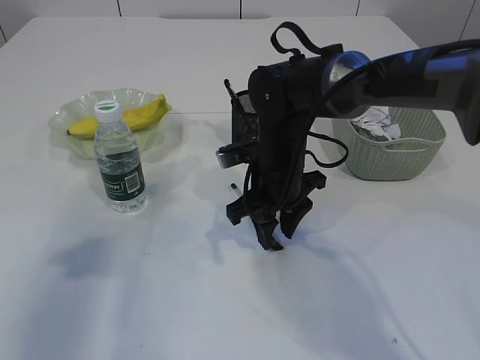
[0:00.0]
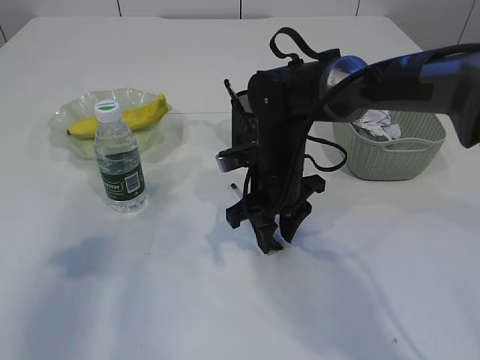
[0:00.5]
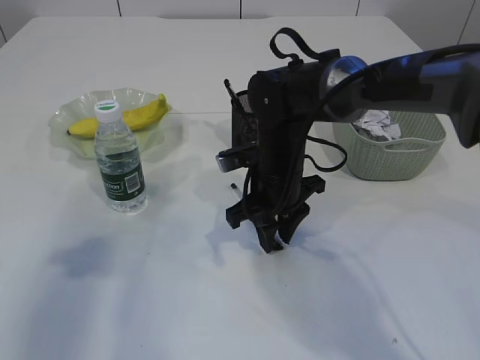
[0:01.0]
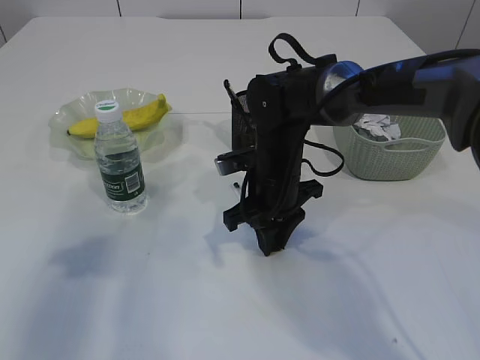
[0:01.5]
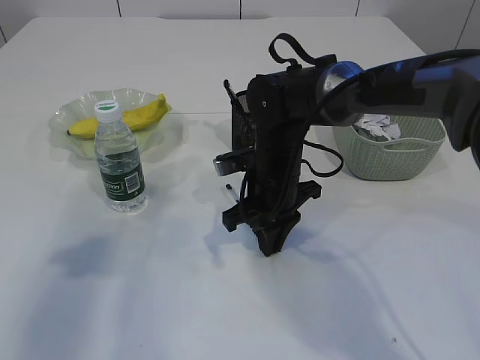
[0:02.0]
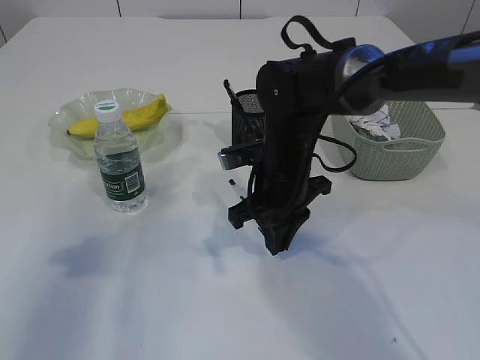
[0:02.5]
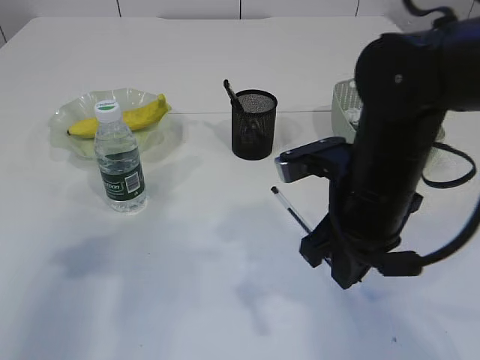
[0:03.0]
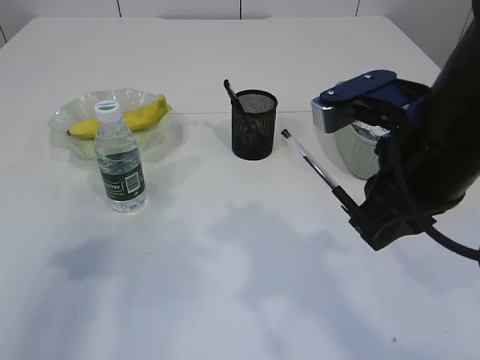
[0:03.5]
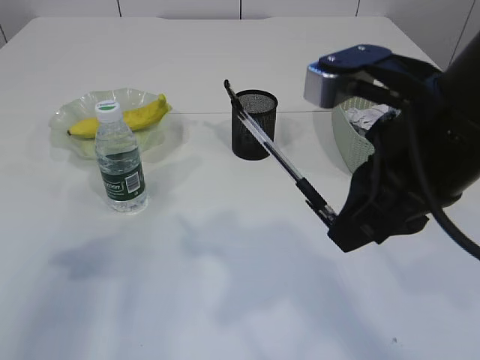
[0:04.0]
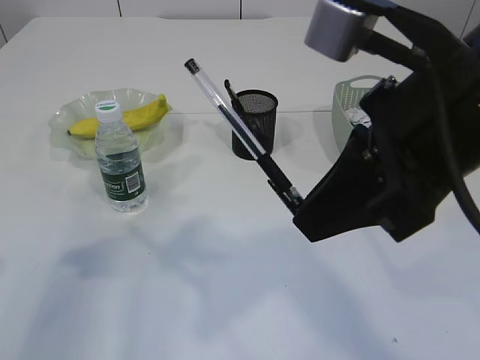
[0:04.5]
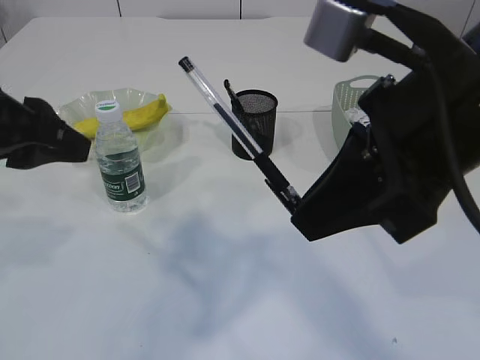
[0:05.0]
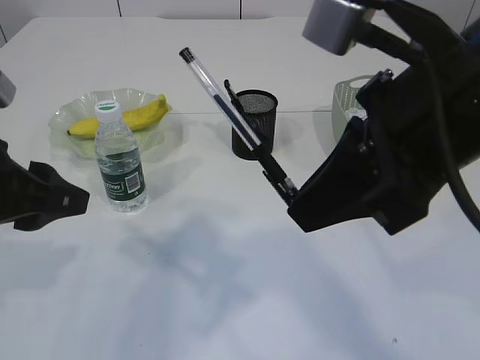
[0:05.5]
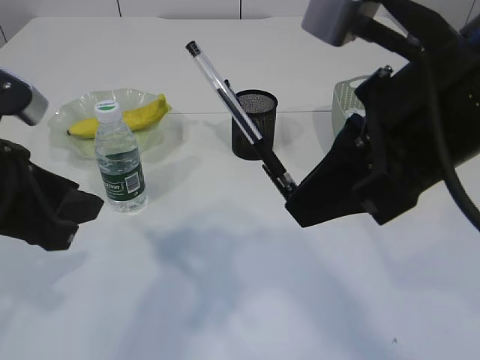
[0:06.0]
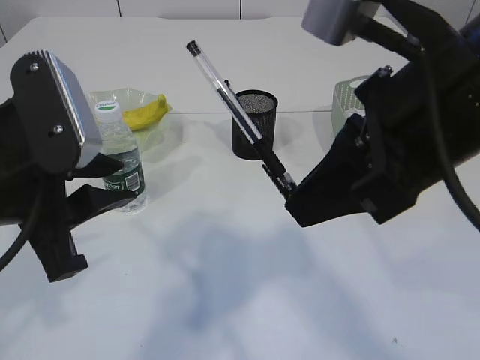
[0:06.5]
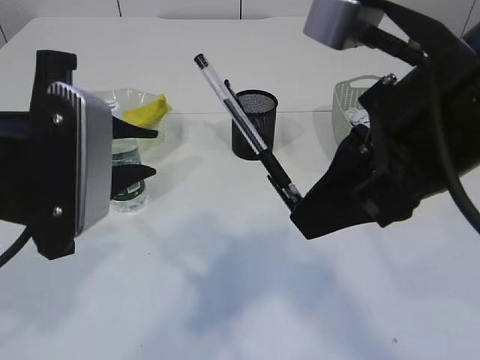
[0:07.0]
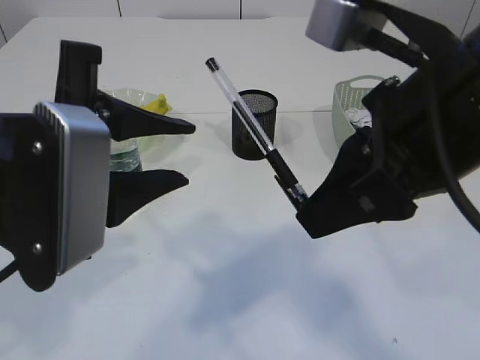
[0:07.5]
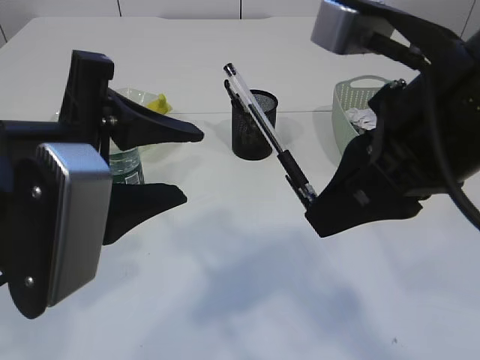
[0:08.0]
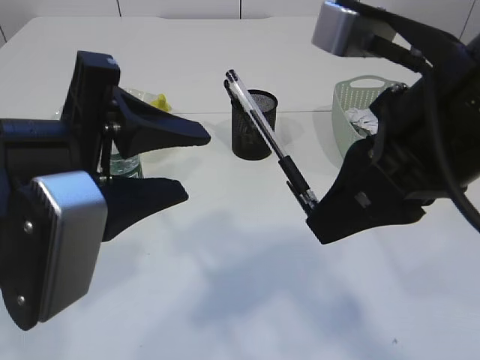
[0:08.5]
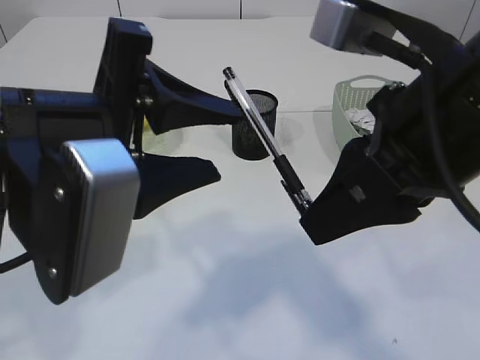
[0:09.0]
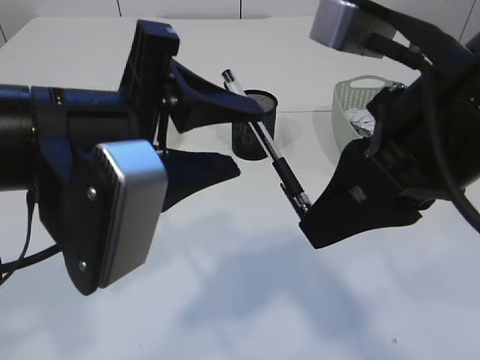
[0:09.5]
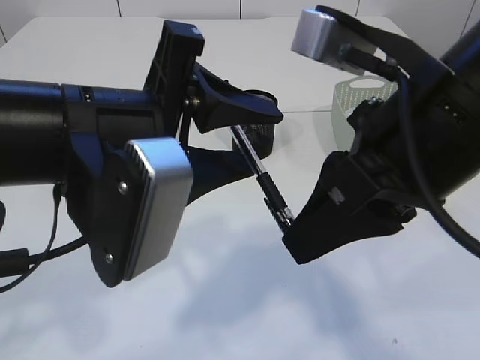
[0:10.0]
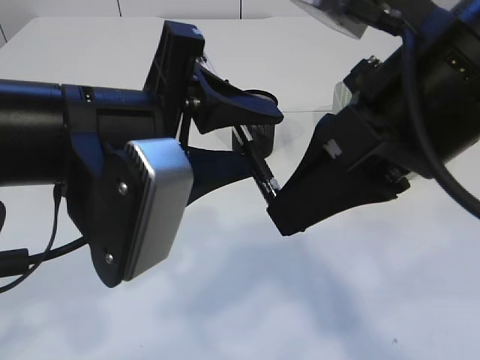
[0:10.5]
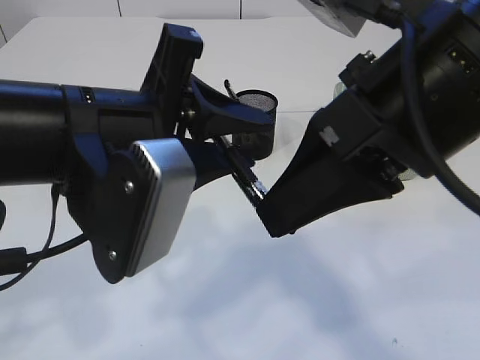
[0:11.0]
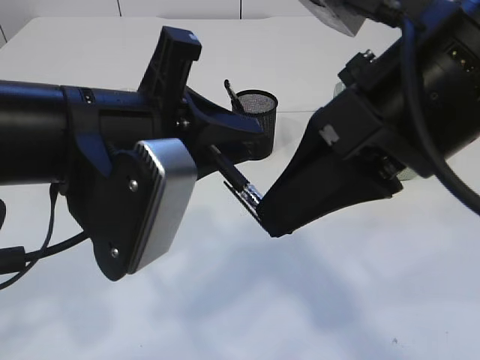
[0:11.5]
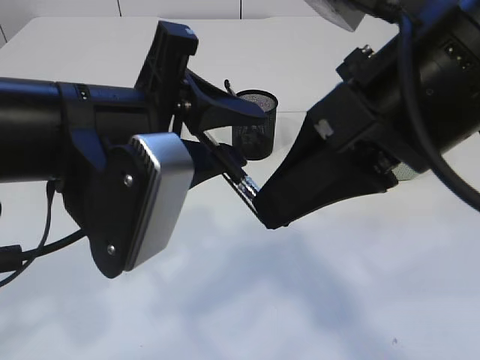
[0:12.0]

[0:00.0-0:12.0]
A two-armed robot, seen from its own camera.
0:00.0 to 0:02.0: The right gripper closes.
0:02.0 to 0:04.0: The right gripper shifts roughly 25 cm upward, backward and to the right.
0:04.0 to 0:06.0: The left gripper goes roughly 10 cm to the right.
0:06.0 to 0:08.0: The left gripper goes roughly 5 cm to the right.

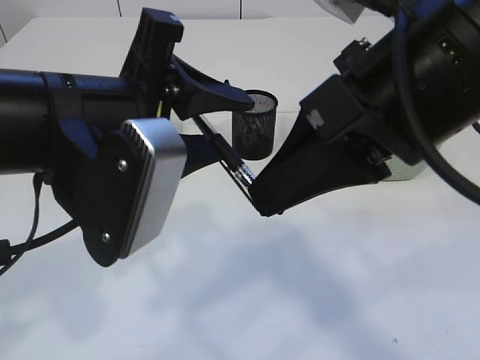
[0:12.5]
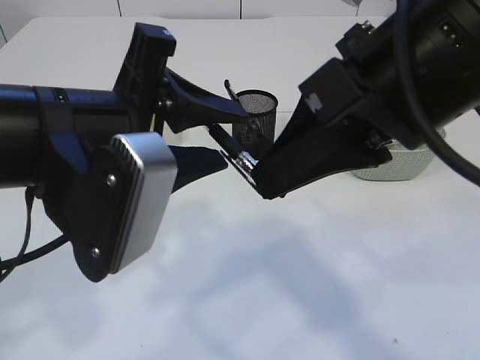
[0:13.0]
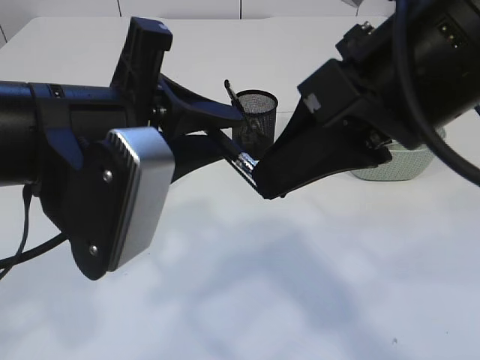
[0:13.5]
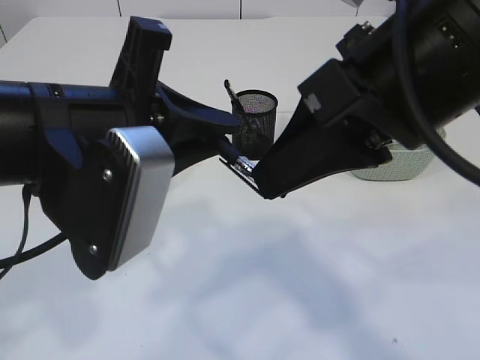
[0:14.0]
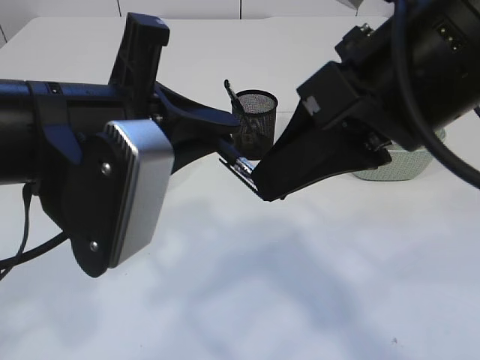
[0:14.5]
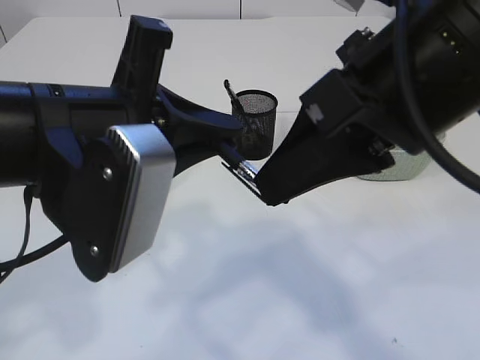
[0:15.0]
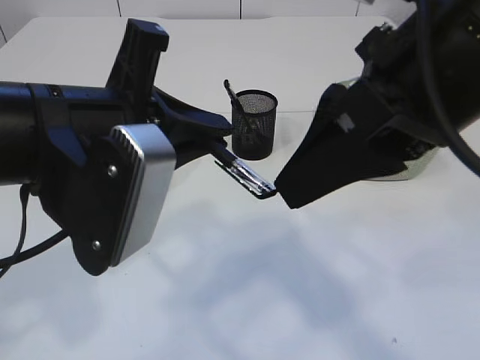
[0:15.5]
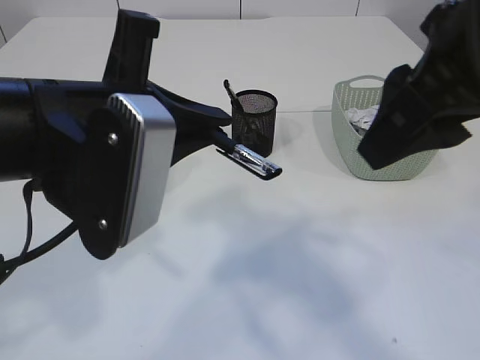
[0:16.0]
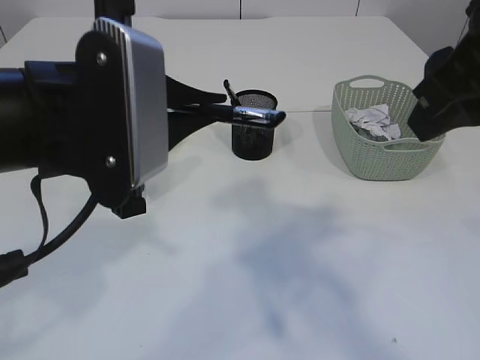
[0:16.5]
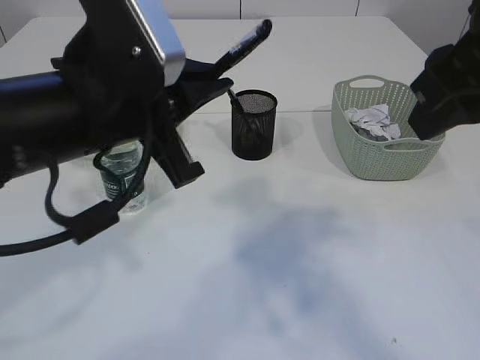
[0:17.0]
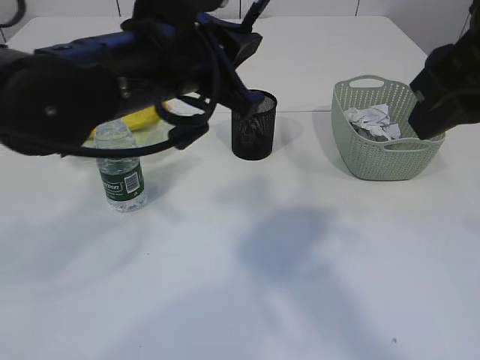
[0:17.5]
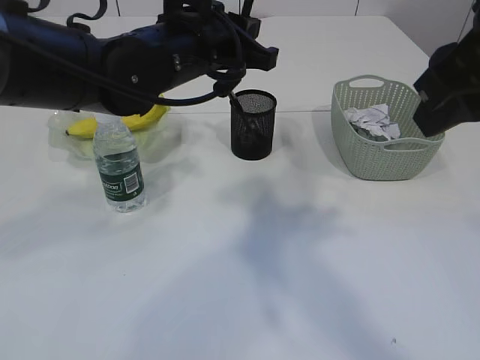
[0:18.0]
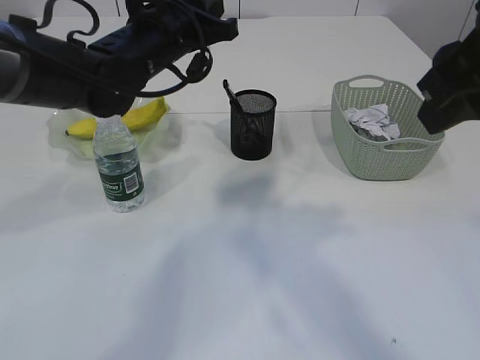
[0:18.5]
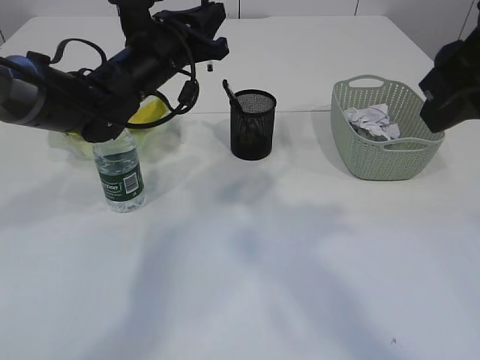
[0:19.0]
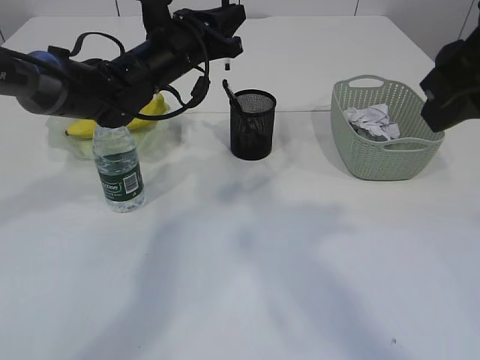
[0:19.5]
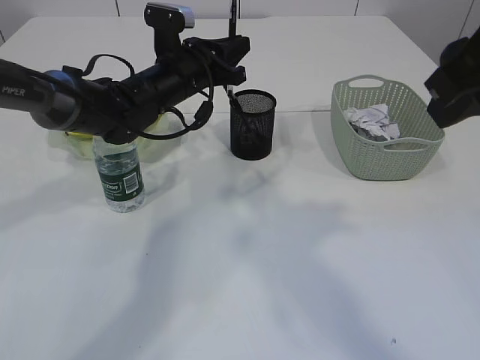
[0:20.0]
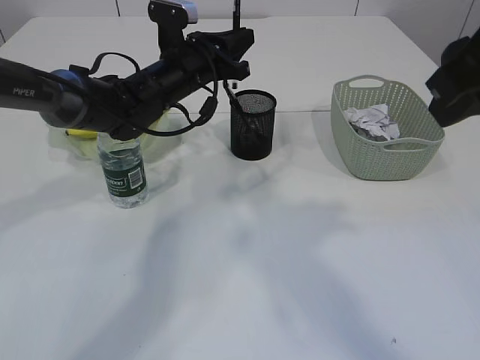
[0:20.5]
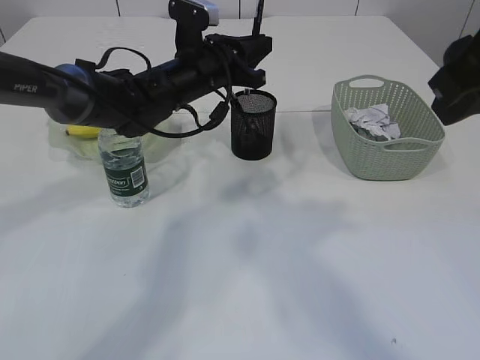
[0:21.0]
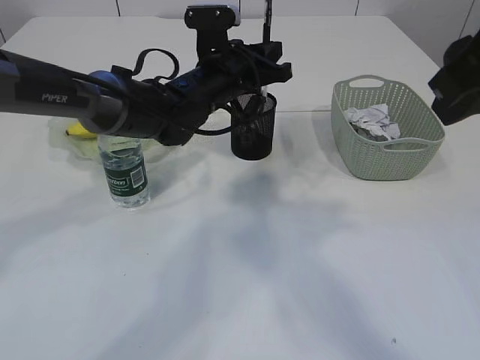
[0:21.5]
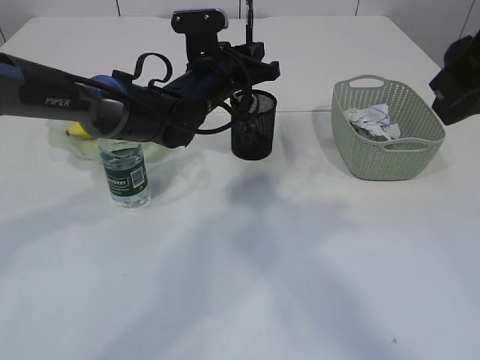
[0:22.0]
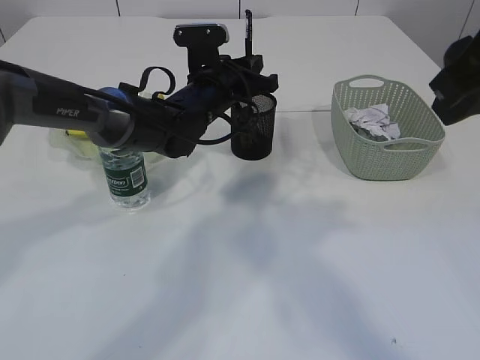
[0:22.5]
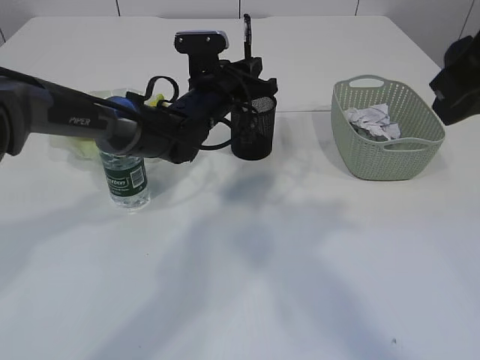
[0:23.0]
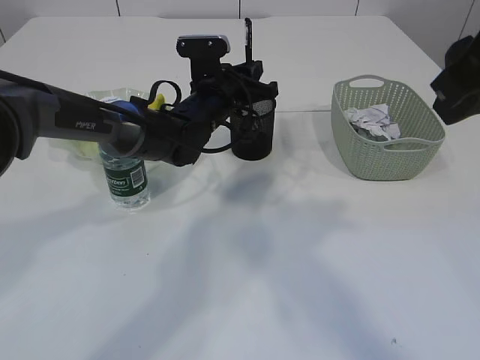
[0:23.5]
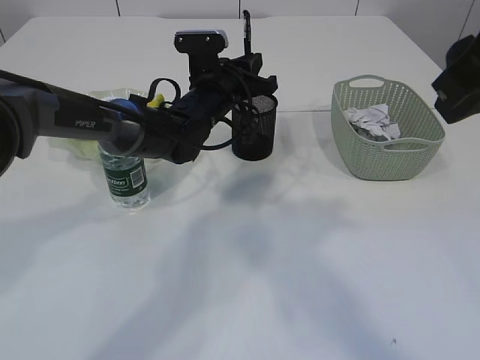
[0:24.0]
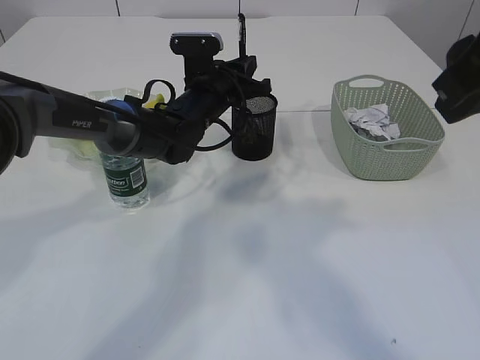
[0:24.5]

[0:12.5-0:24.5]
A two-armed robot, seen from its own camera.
Step, 0:12.5 to 0:15.5: transfer the pen to the left arm.
0:12.5 to 0:14.5: The left gripper closes up.
0:14.5 to 0:16.5: The right gripper goes about 5 cm to the right, and opens its fingers.
0:16.5 to 0:18.5: The left gripper shifts roughly 20 cm forward.
0:18.5 to 0:20.5: The left gripper goes some 10 cm downward and forward.
0:20.5 to 0:24.5: The grippers make only small movements.

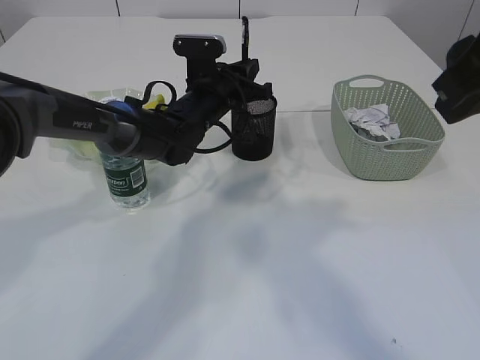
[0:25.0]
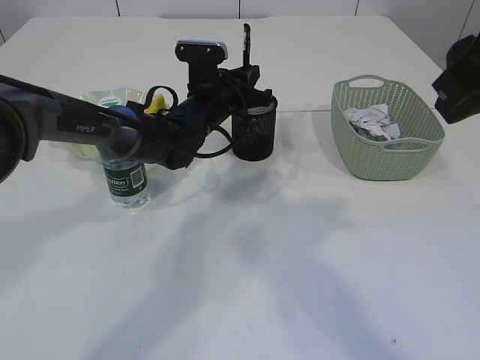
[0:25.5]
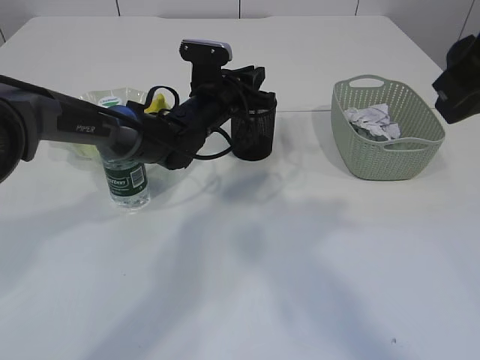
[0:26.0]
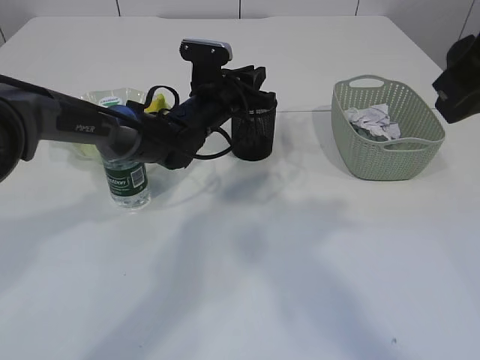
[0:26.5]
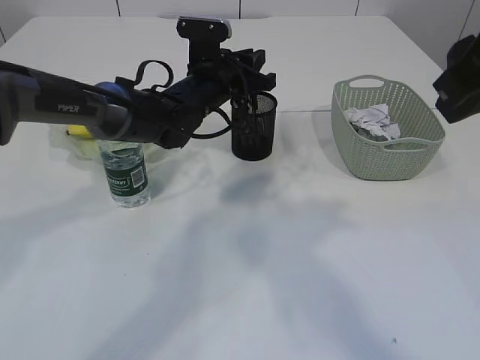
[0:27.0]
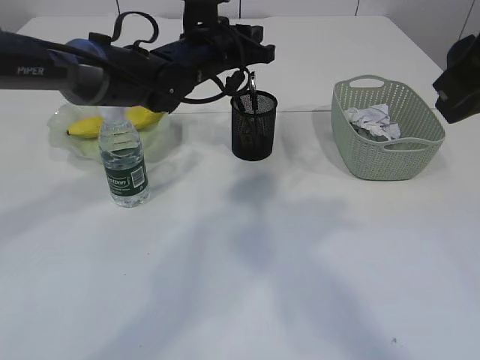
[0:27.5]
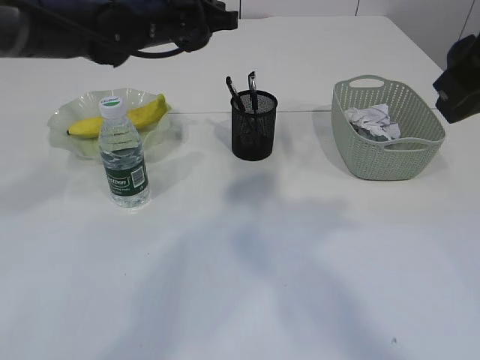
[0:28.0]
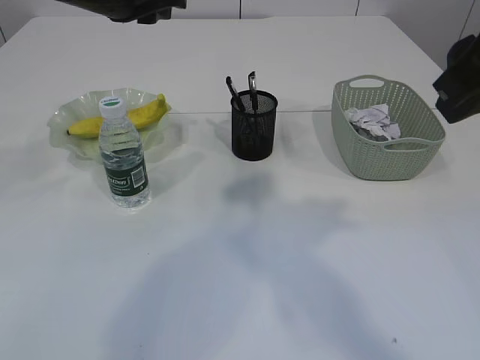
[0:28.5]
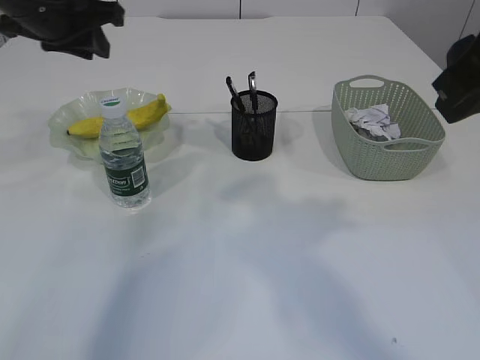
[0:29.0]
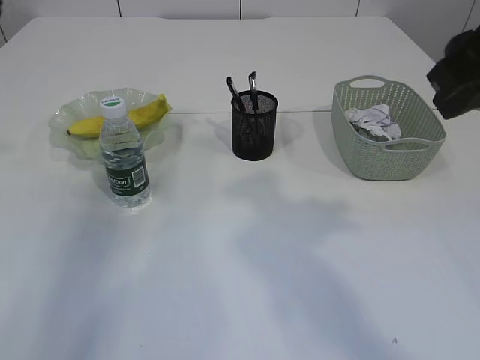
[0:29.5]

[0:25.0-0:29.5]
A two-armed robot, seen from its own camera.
Step, 0:25.0 to 0:27.0: Place the pen into the pen holder.
0:25.0 to 0:27.0: The grippers make only small movements.
0:27.0 to 0:29.5: The left gripper goes approximately 30 cm to the left and upward.
